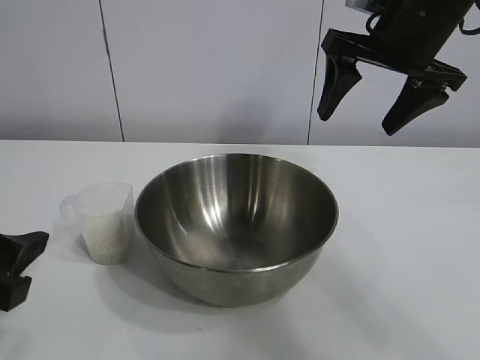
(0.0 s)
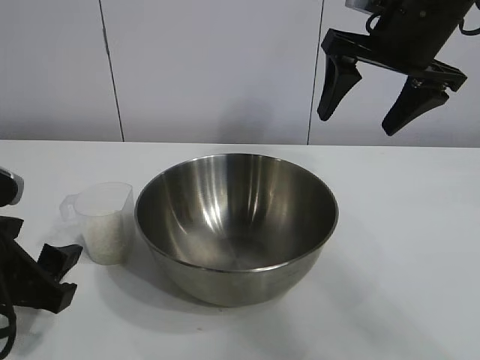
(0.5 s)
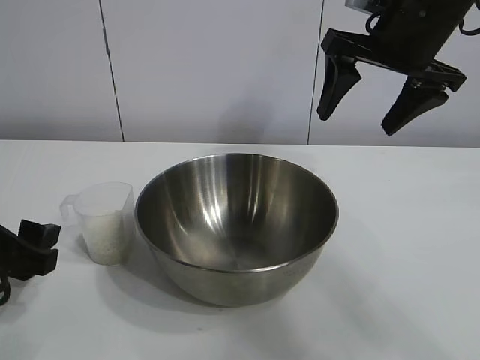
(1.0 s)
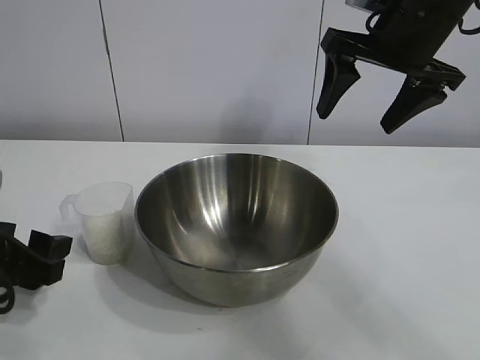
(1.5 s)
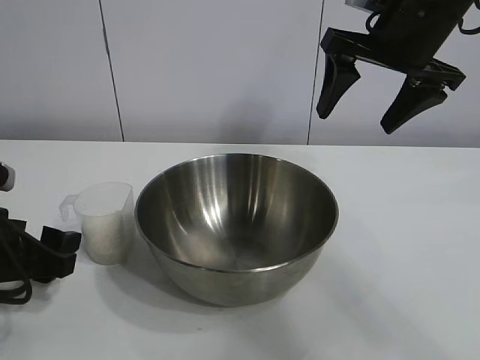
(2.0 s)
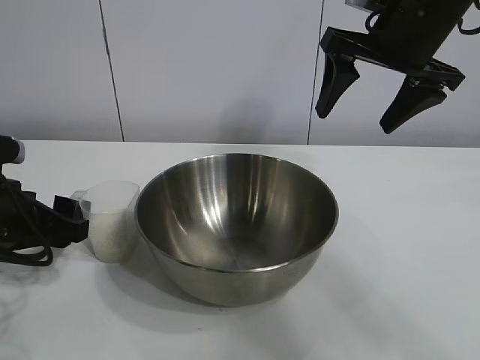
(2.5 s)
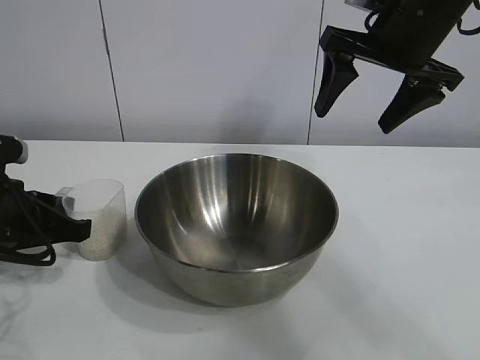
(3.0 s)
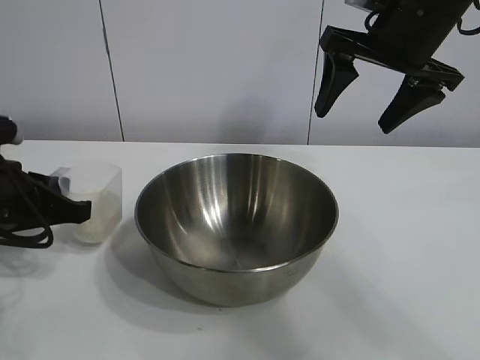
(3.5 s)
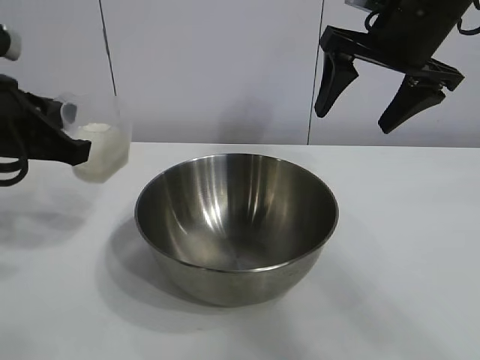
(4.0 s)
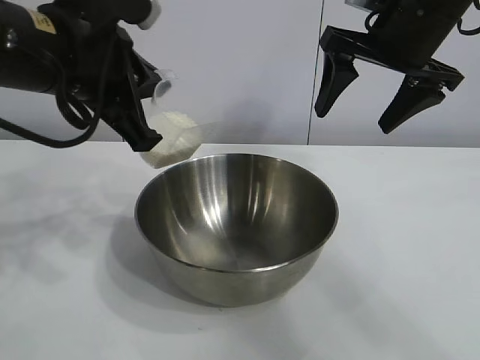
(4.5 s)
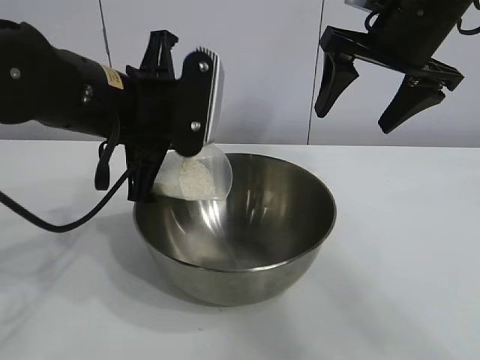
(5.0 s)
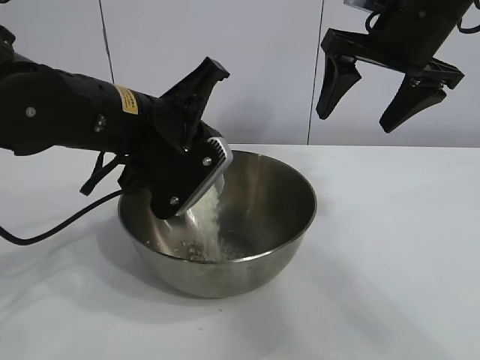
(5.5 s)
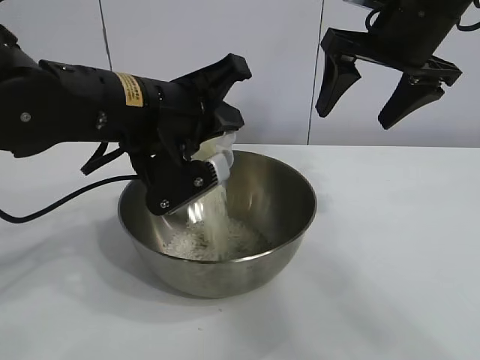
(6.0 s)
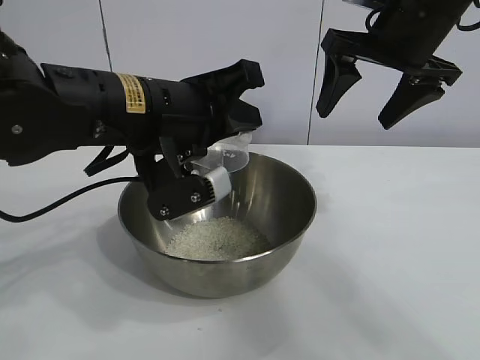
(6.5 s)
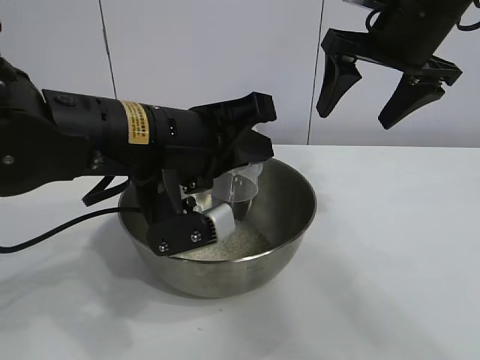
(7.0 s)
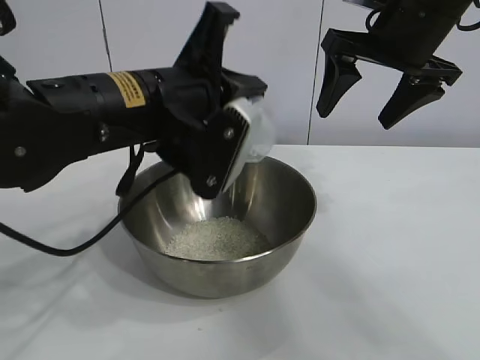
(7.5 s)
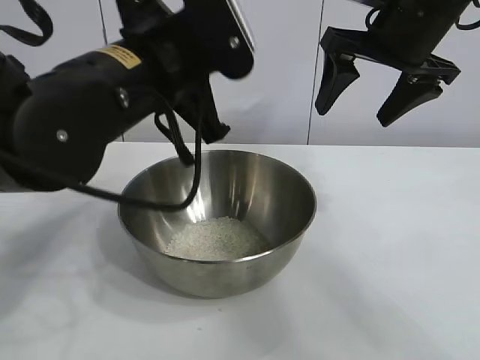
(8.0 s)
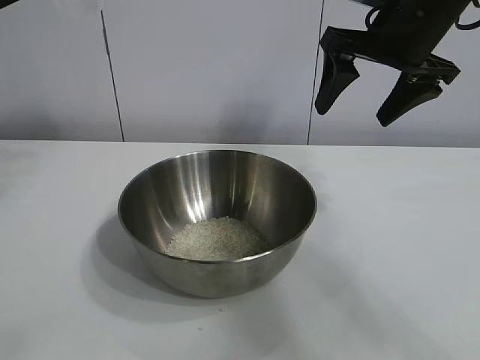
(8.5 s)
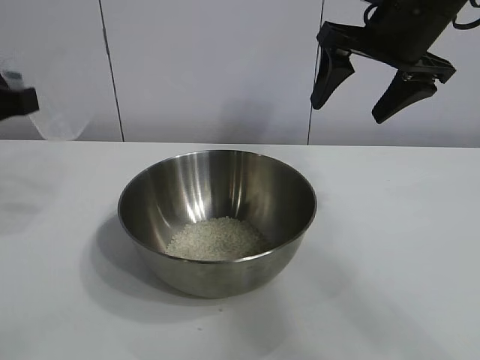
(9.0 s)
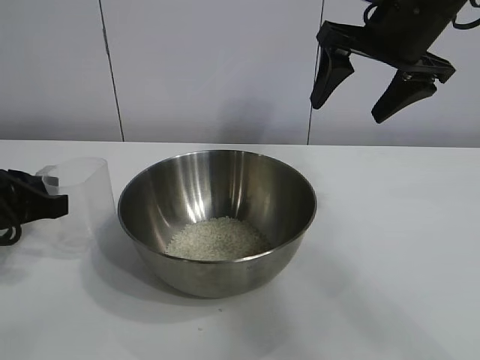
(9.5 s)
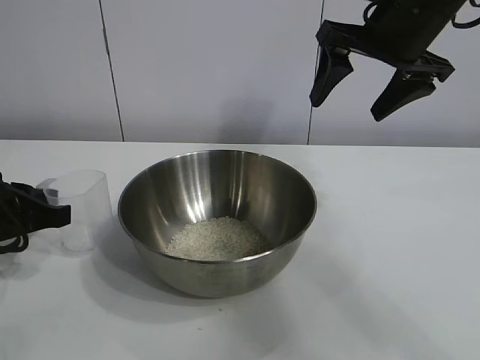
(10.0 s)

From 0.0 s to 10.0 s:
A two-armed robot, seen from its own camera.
Task of the whole recording: the right gripper grasp the rice container and place it in the center of the table, the left gripper grasp the rice scoop and pour the rice into the rice container.
Step, from 0.0 s to 3.0 s: Grasp the cup with rice in it with left gripper.
Step, from 4.0 s to 6.5 s: Pour the rice from the cup into the bowl with the left gripper.

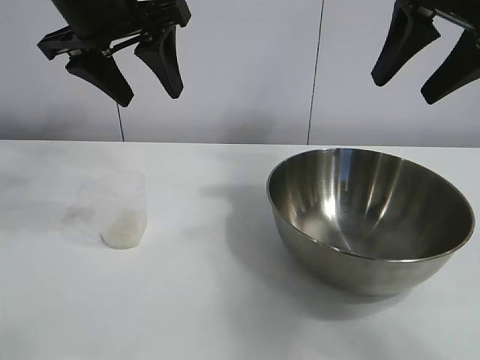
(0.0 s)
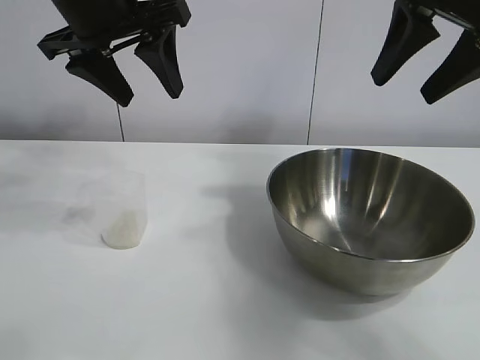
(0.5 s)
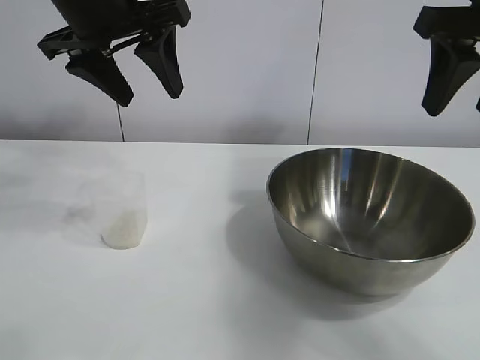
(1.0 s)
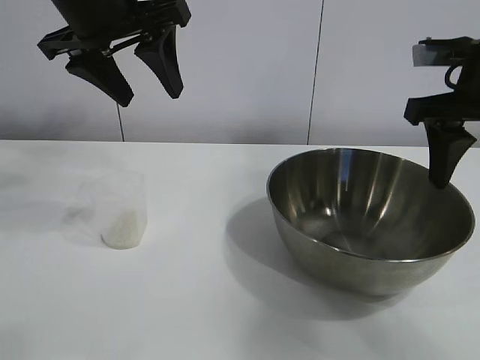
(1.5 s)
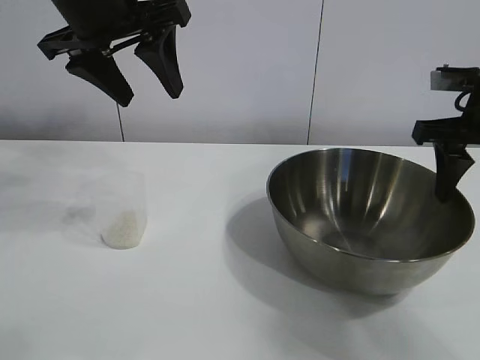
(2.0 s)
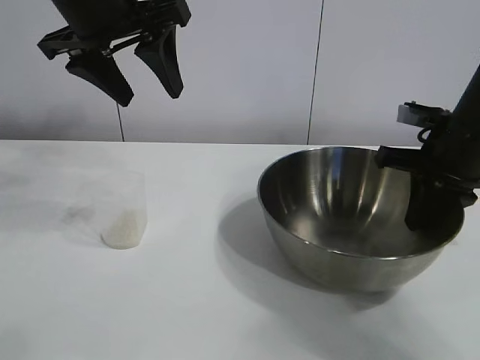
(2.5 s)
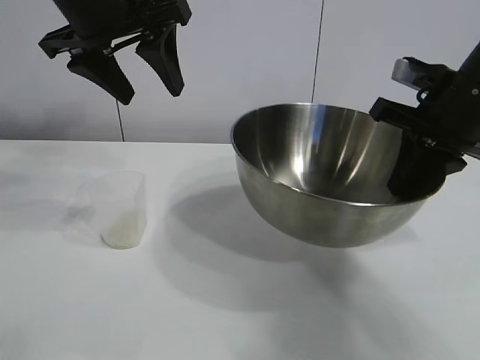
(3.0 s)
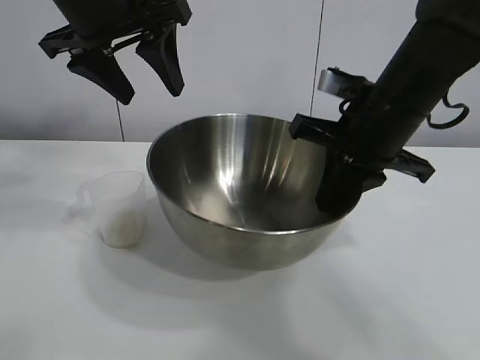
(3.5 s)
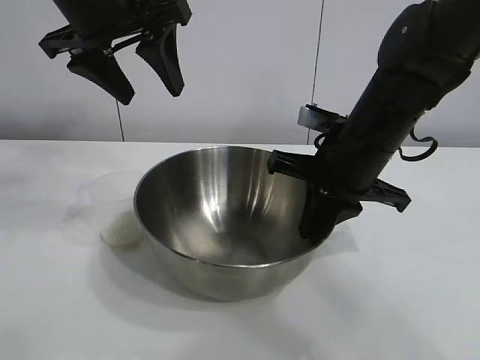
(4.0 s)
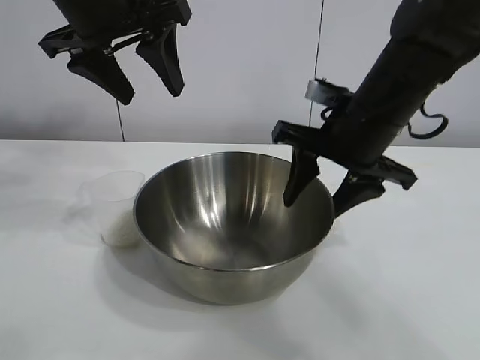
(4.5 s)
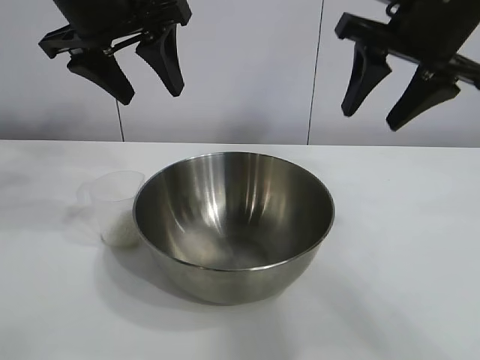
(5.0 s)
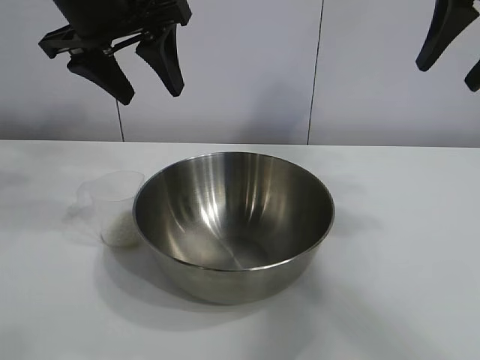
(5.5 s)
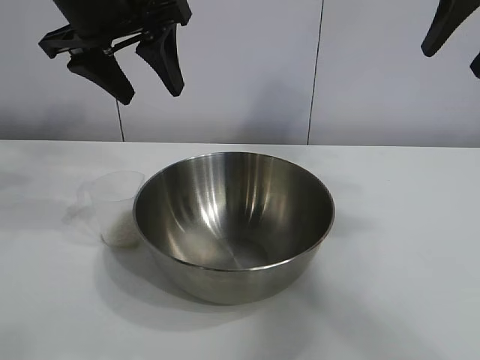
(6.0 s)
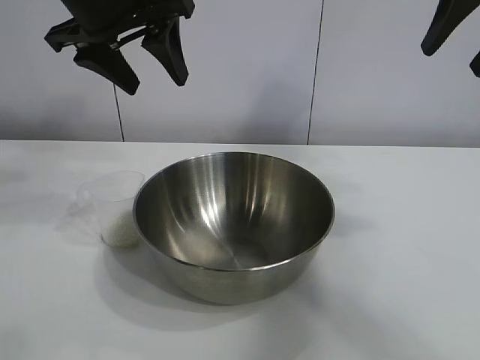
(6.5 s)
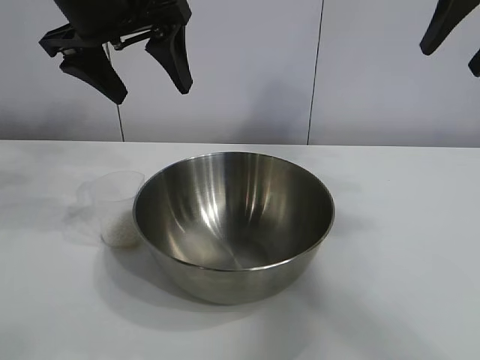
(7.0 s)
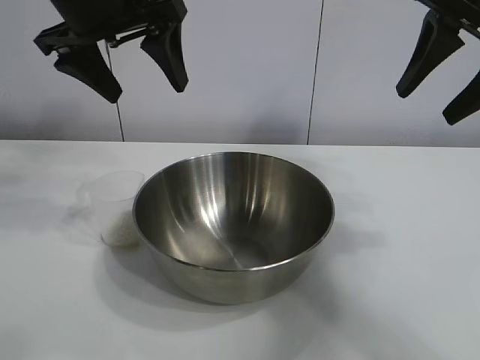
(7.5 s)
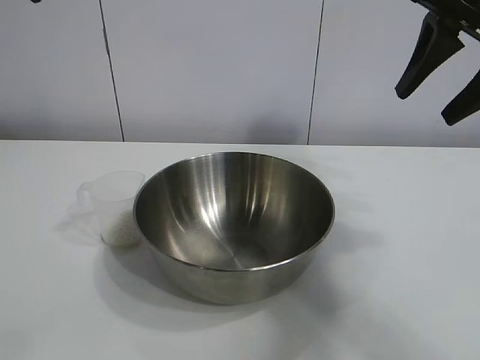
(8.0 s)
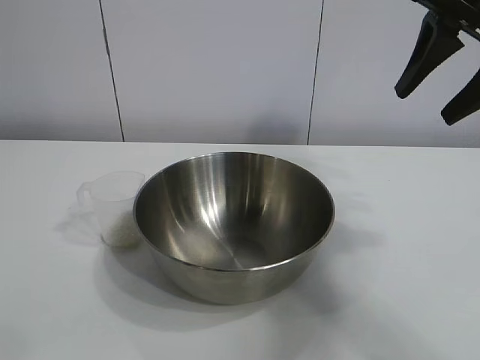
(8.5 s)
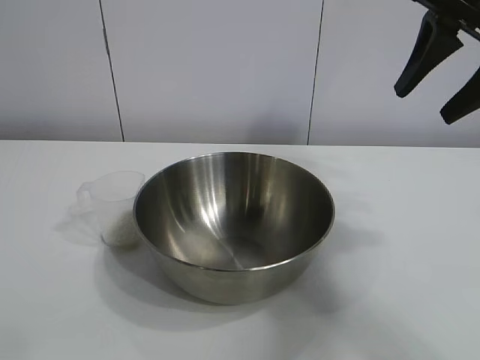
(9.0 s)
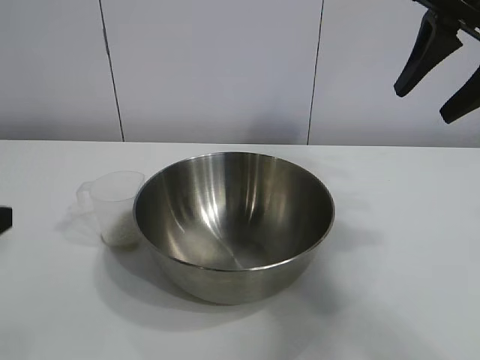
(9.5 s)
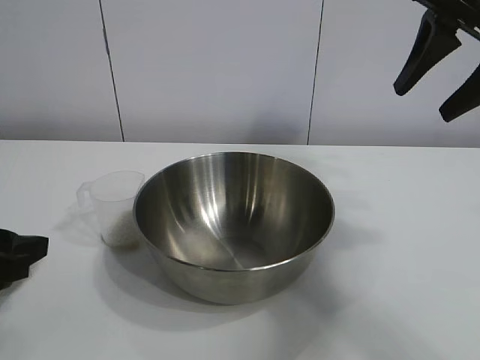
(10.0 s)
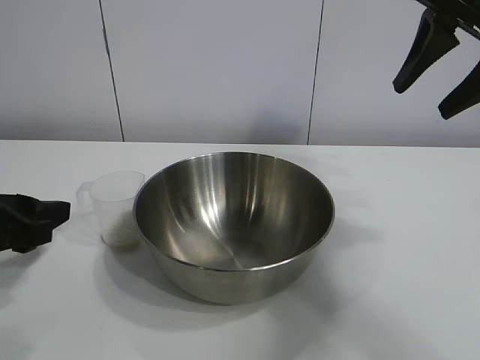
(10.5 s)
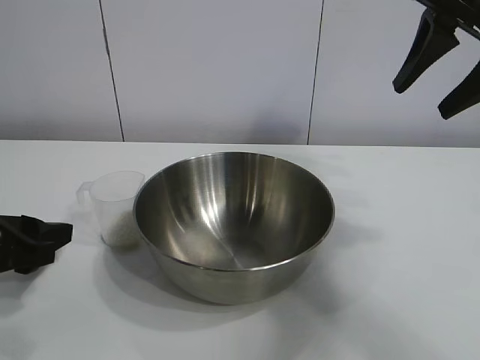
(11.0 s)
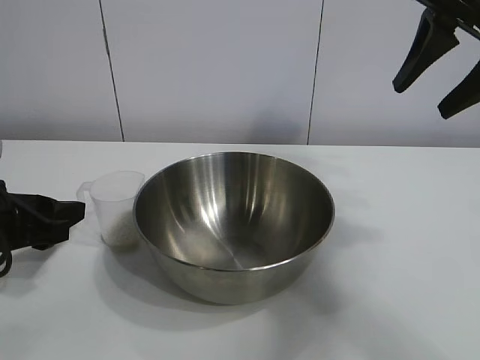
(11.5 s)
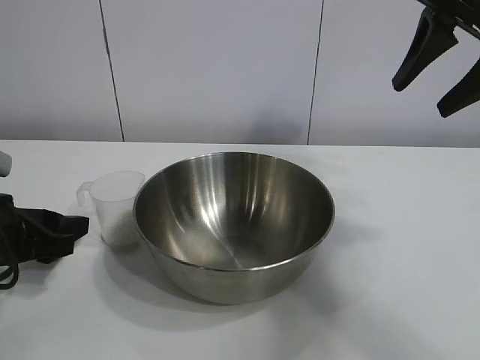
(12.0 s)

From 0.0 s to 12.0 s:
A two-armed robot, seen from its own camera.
Task of the whole recording: the right gripper grasp the rice container and place it in the center of the table, the left gripper grasp the rice scoop and pour the rice into the rice container.
Step, from 1.0 s to 4.5 s: Move the bowl in the center of view with right gripper.

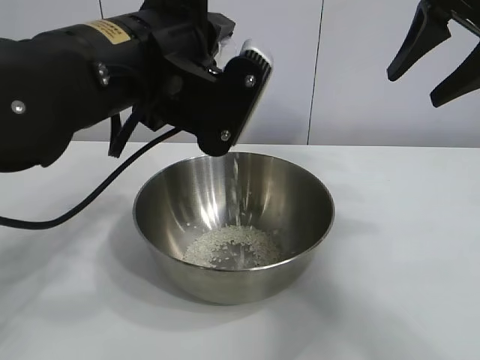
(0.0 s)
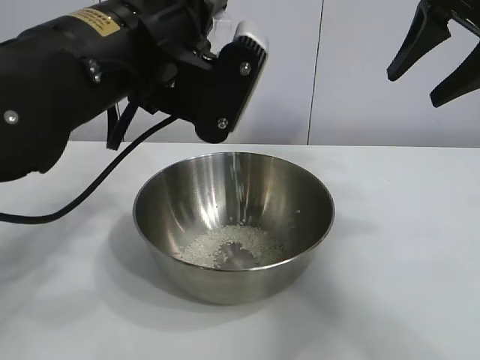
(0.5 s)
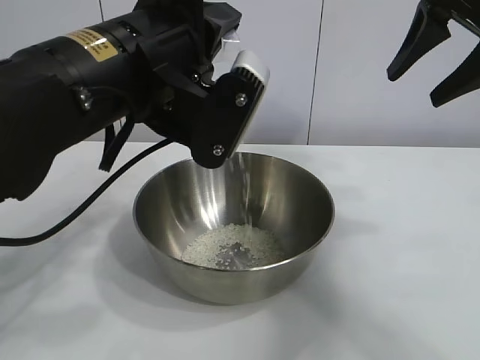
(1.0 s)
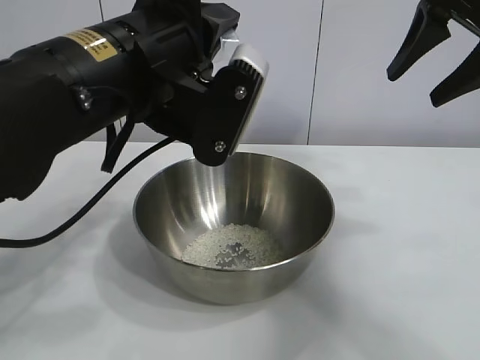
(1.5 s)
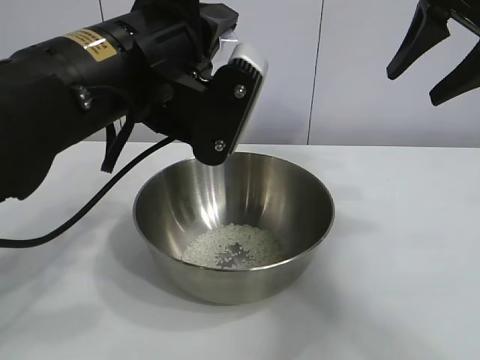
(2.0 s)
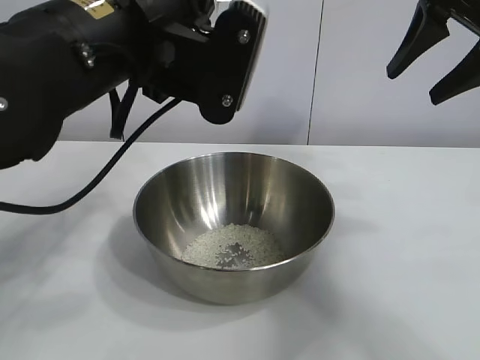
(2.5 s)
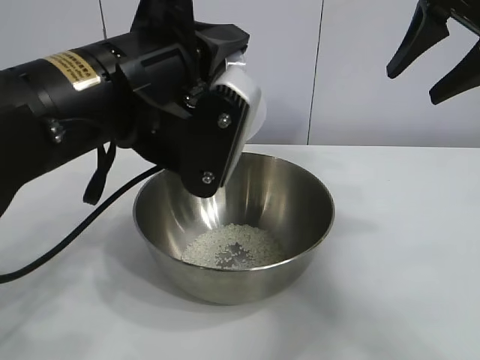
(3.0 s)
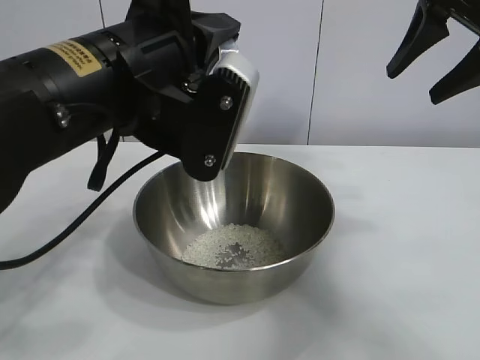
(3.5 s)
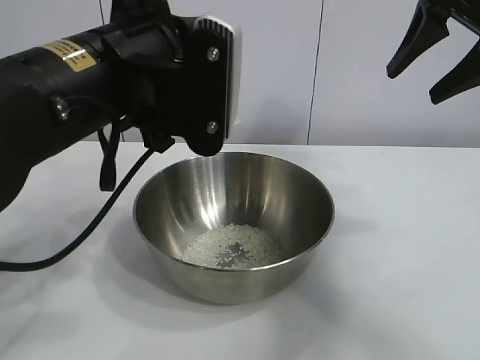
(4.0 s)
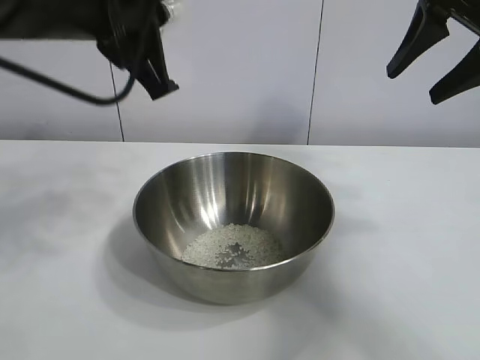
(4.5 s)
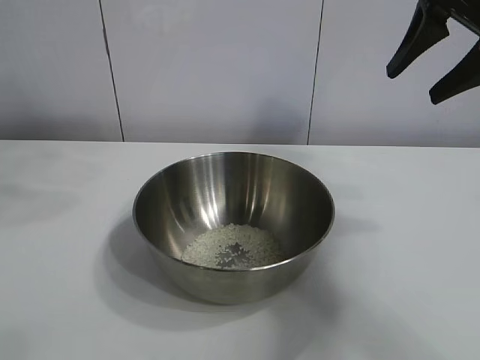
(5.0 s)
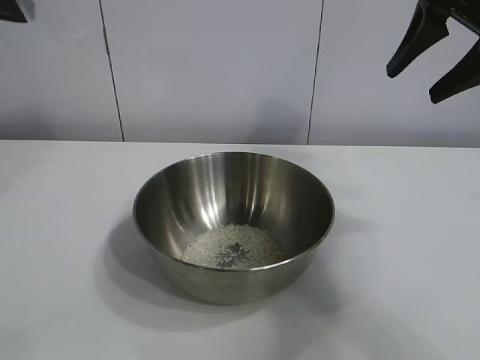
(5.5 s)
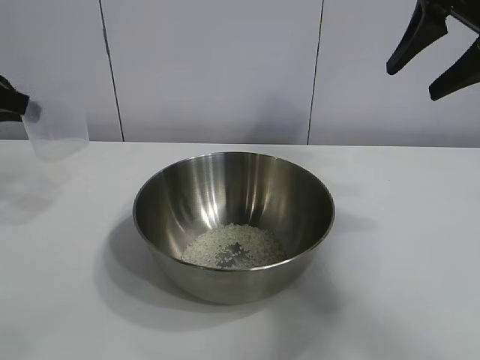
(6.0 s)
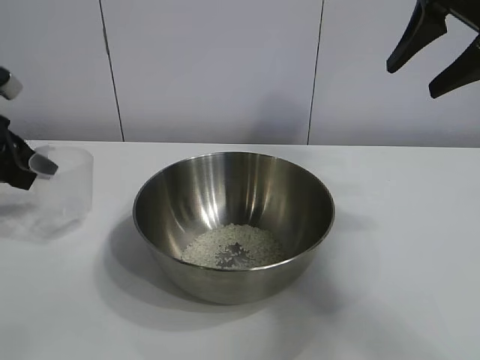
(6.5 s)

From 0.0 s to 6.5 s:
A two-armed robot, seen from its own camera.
Task of the whole recording: the right gripper grasp the rice container and place it in the center of the table, the left gripper grasp the rice scoop and pour the rice into the rice container.
Step, from 0.0 s to 2.0 s: Pour the rice from the cup into the bowl with the left gripper.
